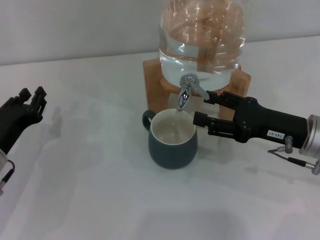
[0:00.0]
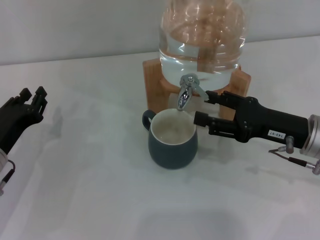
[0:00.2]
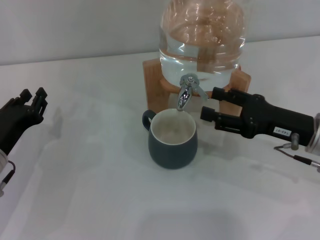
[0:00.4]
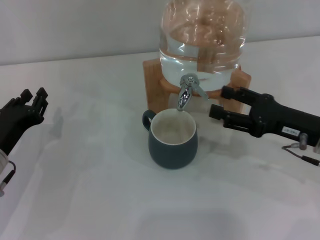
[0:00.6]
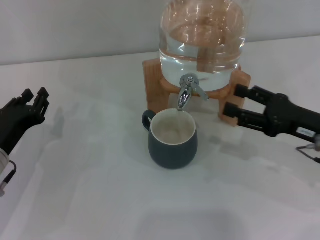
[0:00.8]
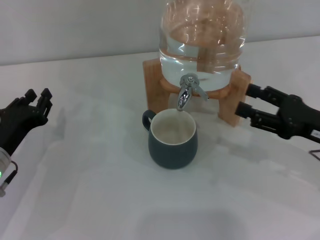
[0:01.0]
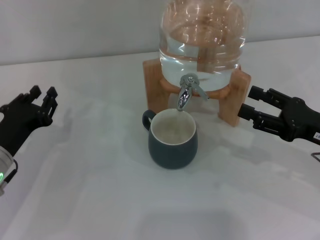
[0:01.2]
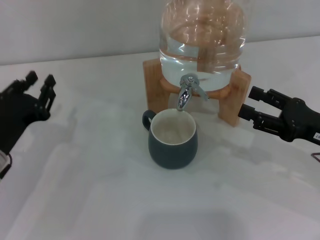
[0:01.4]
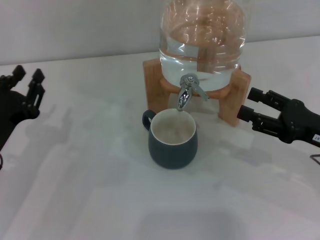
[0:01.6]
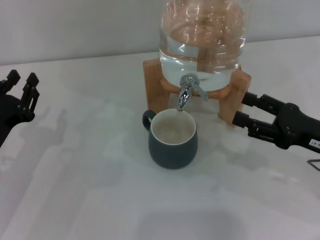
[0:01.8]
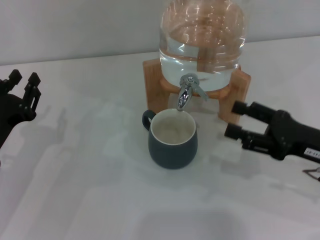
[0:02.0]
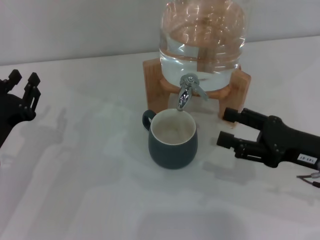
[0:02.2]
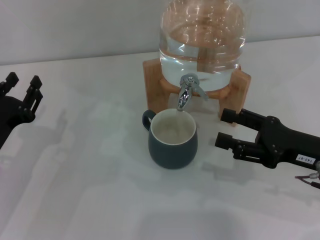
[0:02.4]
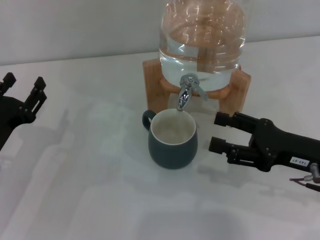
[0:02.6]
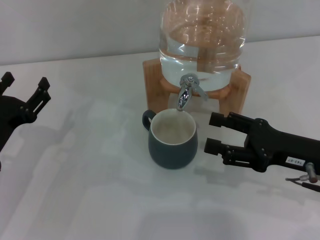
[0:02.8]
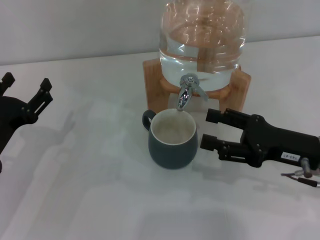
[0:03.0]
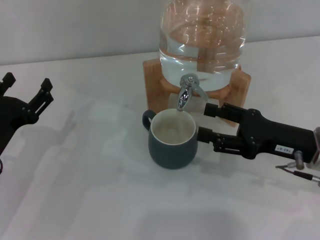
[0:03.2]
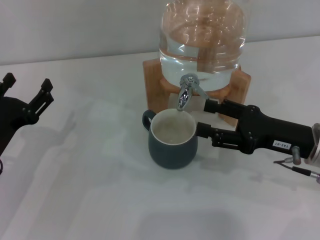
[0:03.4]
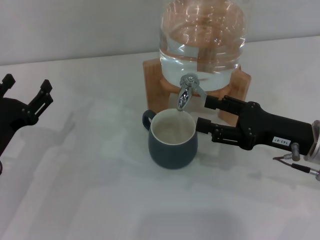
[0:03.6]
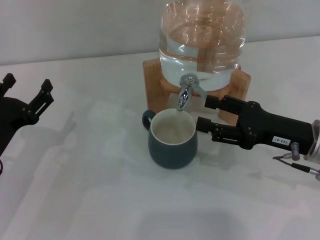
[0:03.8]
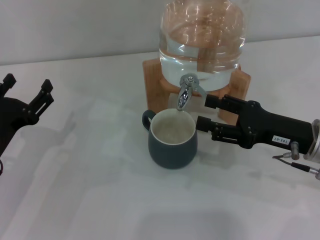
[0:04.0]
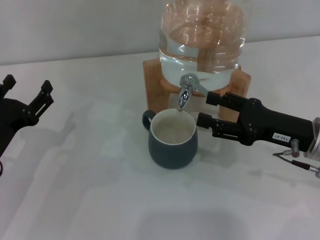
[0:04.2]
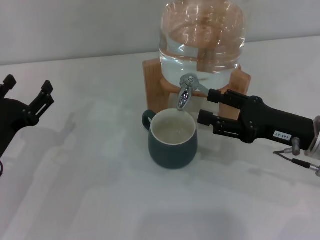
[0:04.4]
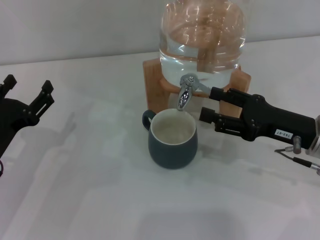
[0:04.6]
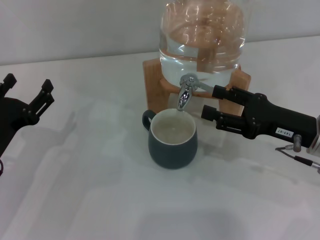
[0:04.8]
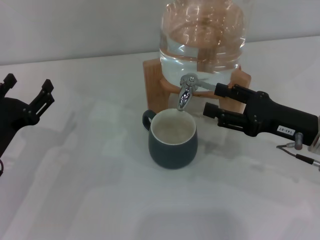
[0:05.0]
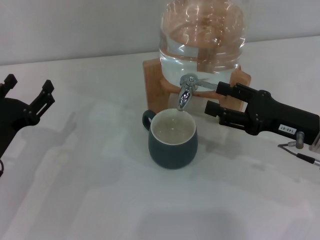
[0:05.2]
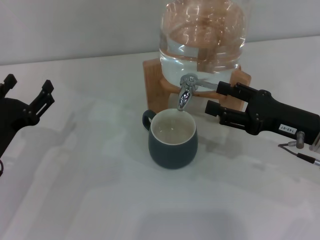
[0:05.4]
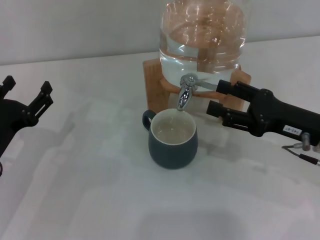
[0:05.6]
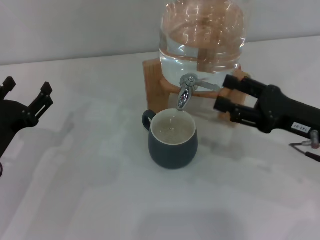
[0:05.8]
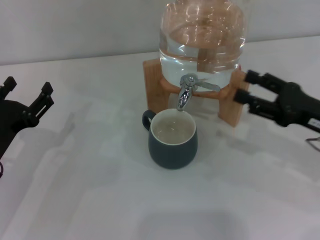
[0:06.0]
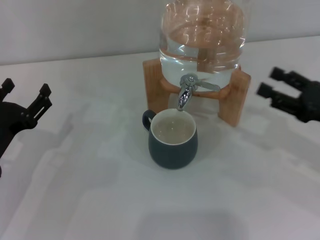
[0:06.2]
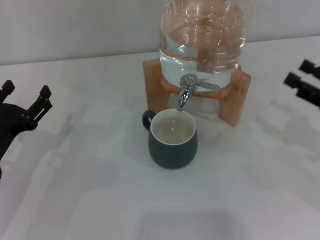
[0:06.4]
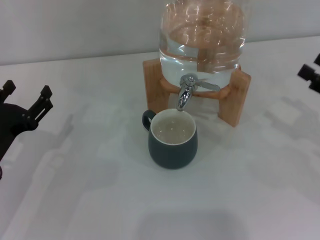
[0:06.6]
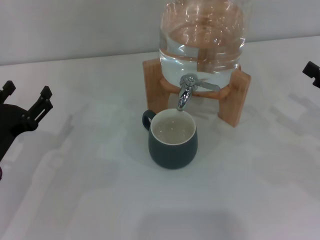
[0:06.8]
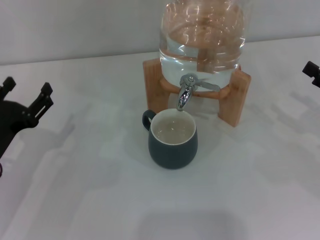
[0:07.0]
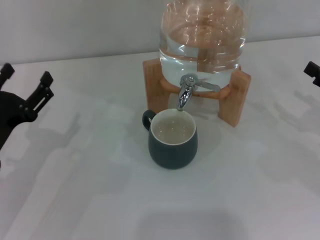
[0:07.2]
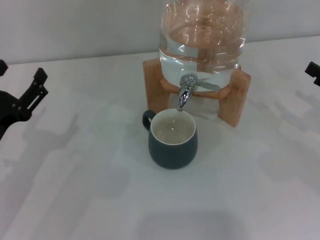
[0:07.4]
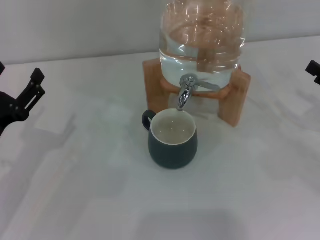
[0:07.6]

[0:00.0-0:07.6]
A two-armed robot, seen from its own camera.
Task of the whole recording: the left gripper pick up the black cup and place it horizontally under the faucet, the right gripper turn on the faucet to fill the cup, and then turn off the faucet.
Step, 0:00.6 to 0:05.6: Close the dispenser valve with the right gripper.
0:00.0 to 0:01.6: The right gripper shifts by some 5 cm.
0:01.6 to 0:03.0: The left gripper opens up.
0:03.0 to 0:06.0: There are only small adjustments of the grippers.
0:06.0 to 0:07.6: The right gripper heads to the right, covering some 10 cm.

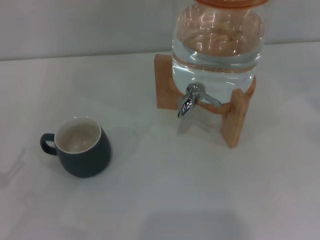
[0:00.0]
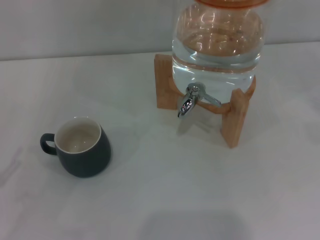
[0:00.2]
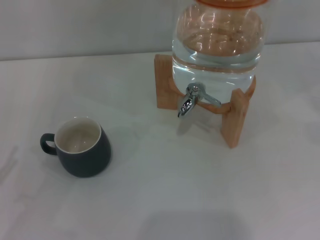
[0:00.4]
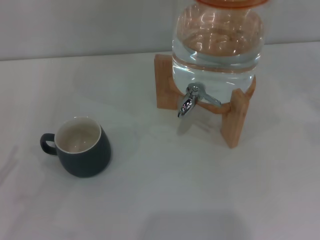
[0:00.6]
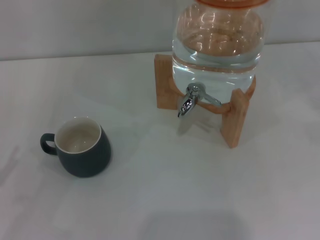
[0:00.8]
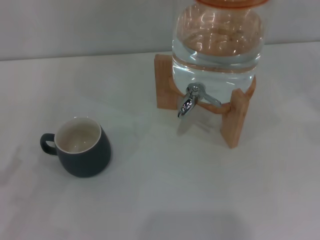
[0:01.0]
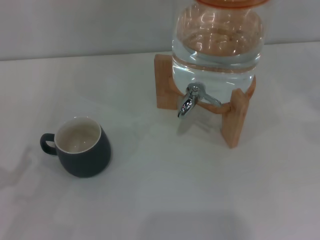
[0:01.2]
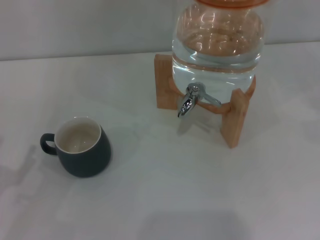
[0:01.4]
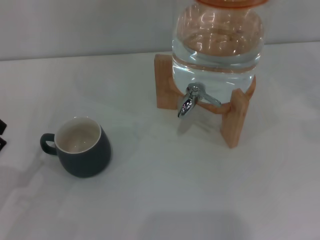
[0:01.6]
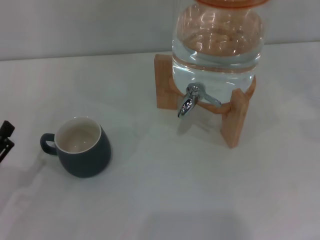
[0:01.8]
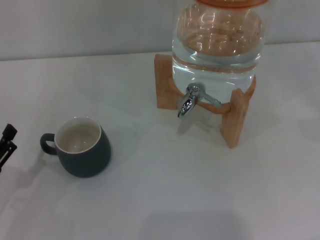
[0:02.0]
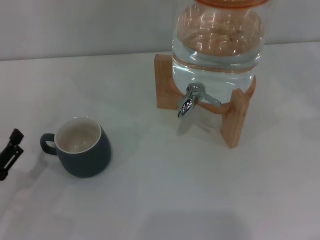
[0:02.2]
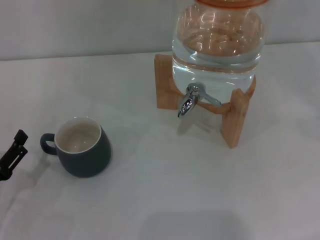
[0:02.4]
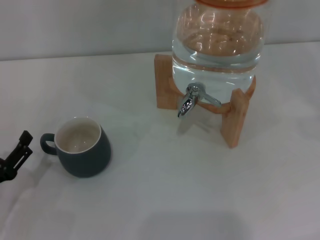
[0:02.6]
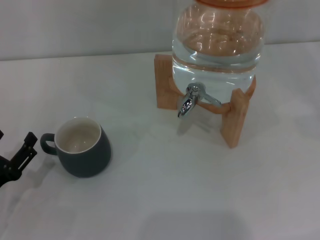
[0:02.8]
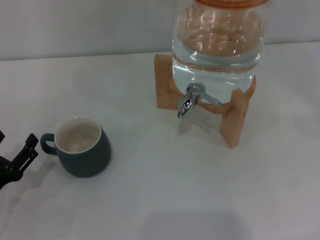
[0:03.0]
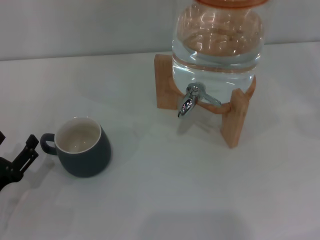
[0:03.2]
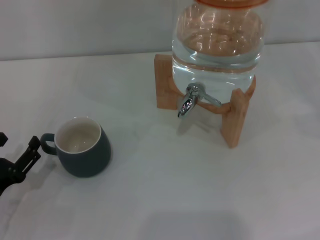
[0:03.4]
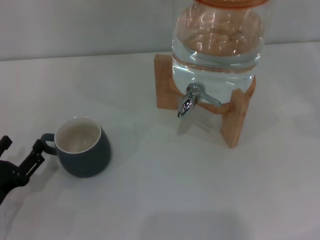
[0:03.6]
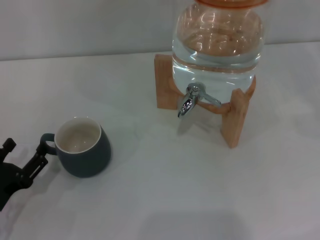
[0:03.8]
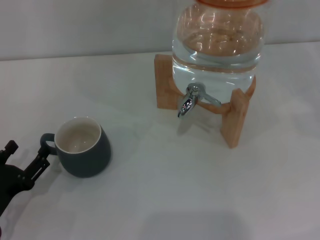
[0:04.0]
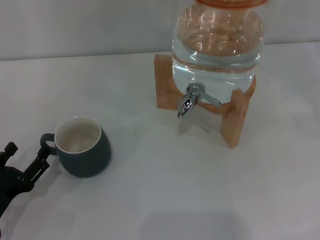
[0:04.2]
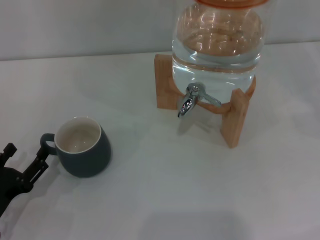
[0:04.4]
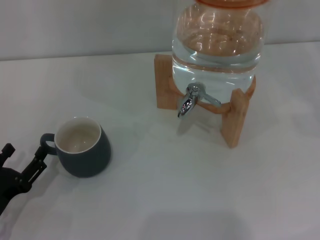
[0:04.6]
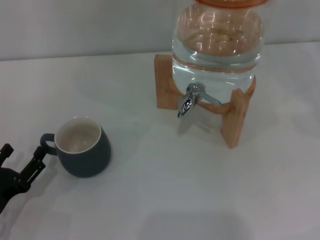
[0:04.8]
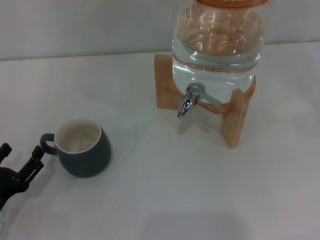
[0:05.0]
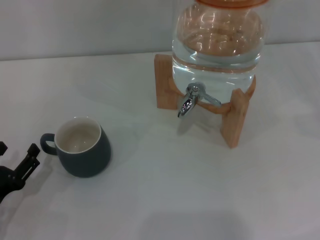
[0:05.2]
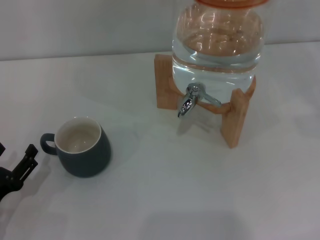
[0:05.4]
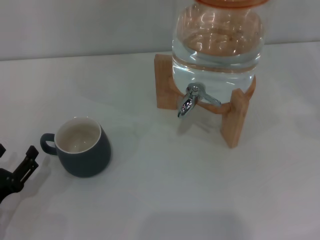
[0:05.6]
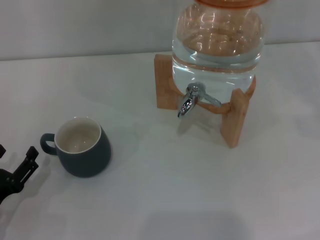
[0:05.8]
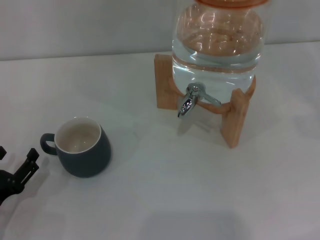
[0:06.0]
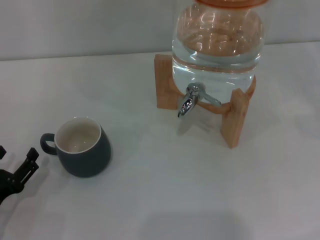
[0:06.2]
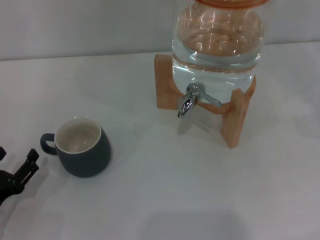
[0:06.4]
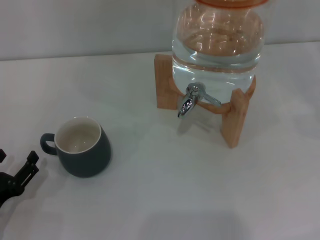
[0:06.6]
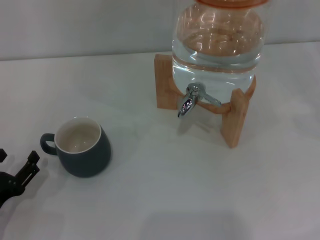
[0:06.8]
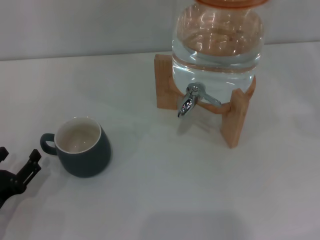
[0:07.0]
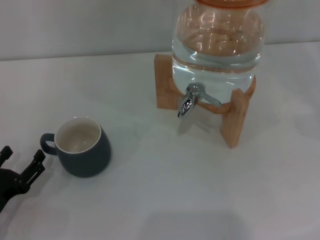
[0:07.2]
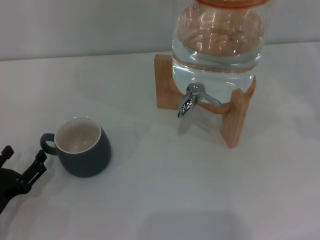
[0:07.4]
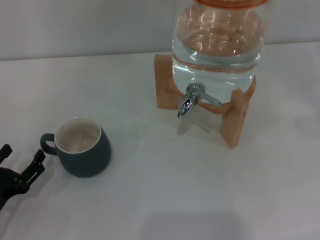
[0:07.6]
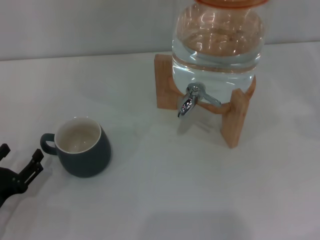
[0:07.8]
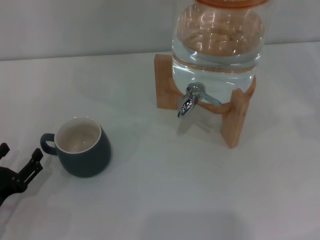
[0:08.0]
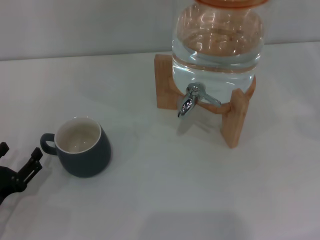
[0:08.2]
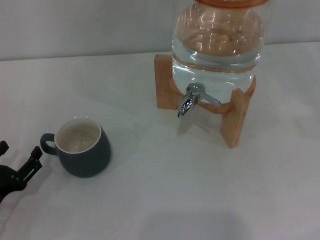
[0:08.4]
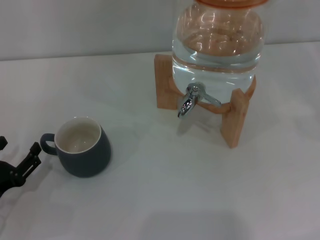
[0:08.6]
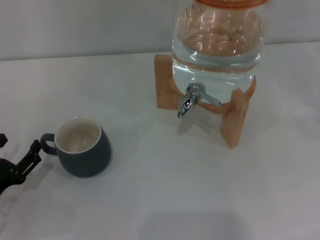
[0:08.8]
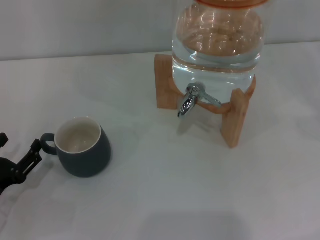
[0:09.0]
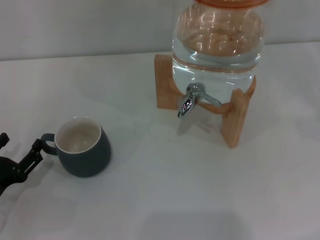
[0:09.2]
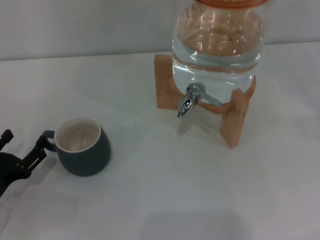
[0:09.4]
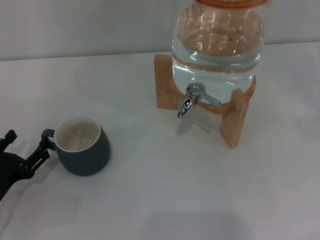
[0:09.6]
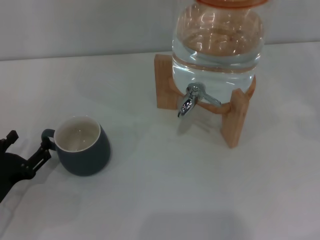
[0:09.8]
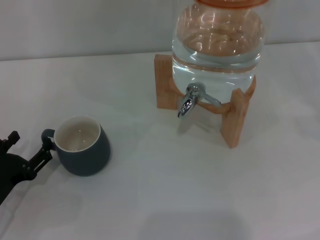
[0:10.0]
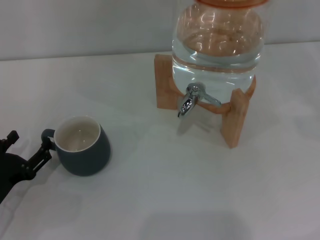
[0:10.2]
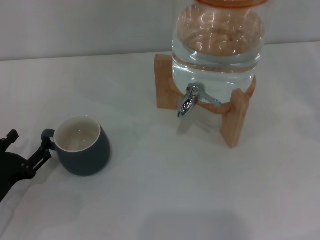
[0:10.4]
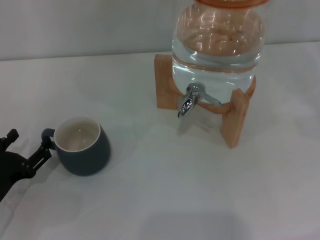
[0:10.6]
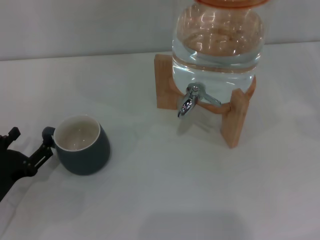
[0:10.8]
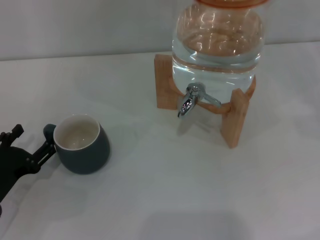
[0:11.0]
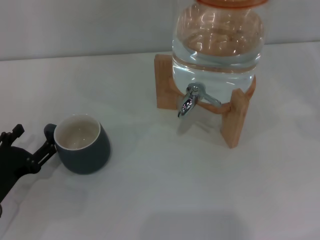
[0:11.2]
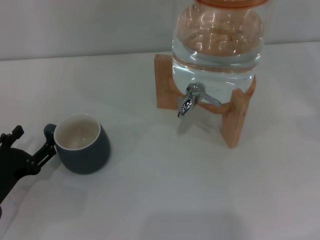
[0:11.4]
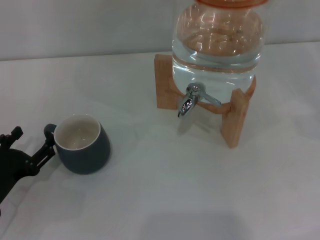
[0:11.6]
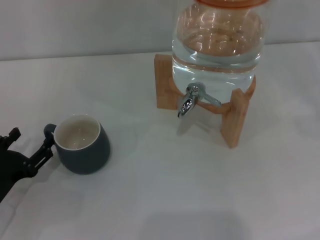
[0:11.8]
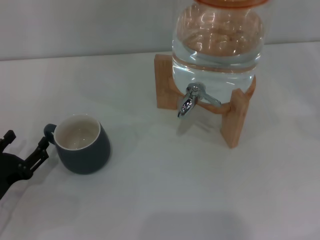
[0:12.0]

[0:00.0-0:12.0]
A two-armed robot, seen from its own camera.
Task of the whole recording: the left gripper pick up the black cup and place it horizontally under the faucet, the right gripper turn on the faucet to fill the cup, and then turn off the faucet.
0:01.6 to 0:04.4: The grippers stay close to where they were, moving slightly.
0:04.4 to 0:06.0: Both grippers stay about where they are.
0:06.0 to 0:07.6: The grippers stay close to where they were, moving slightly.
0:07.6 to 0:09.0: The two grippers keep their place.
0:09.0 to 0:10.4: The grippers make only small movements.
0:10.4 to 0:12.0: Neither gripper changes place.

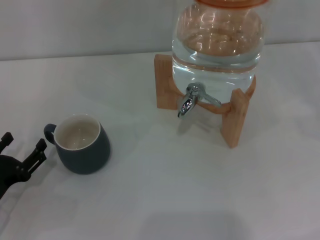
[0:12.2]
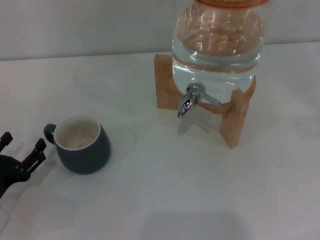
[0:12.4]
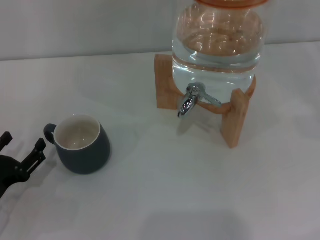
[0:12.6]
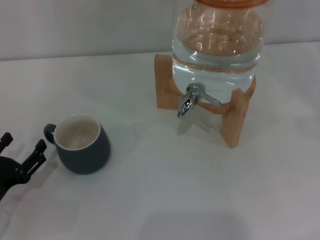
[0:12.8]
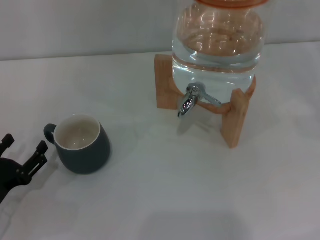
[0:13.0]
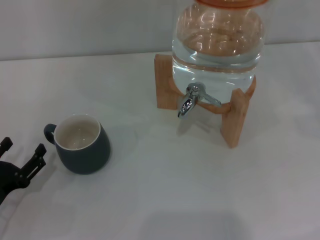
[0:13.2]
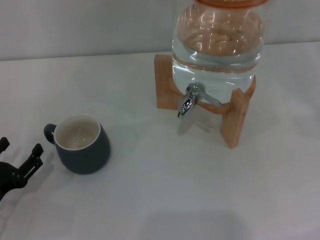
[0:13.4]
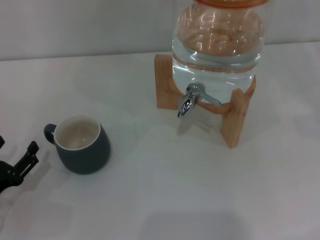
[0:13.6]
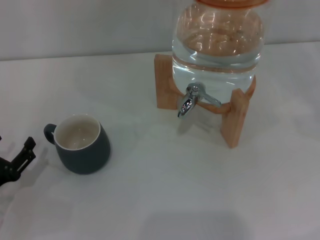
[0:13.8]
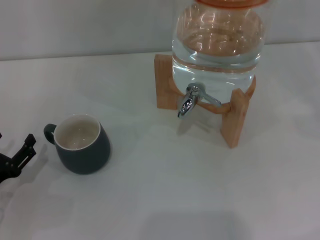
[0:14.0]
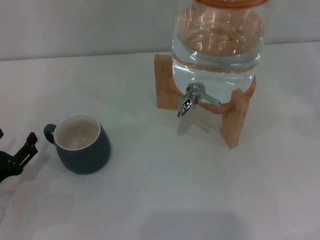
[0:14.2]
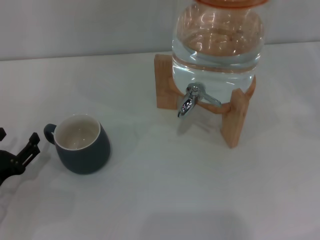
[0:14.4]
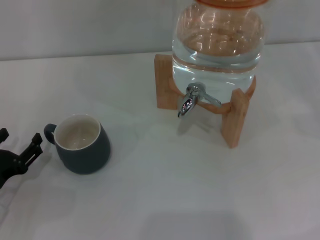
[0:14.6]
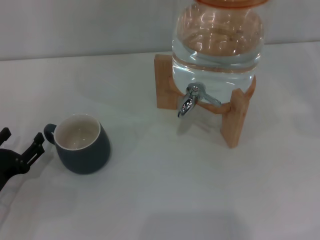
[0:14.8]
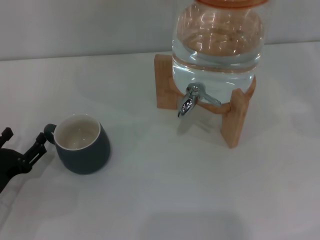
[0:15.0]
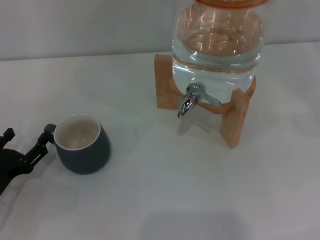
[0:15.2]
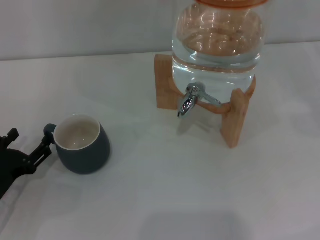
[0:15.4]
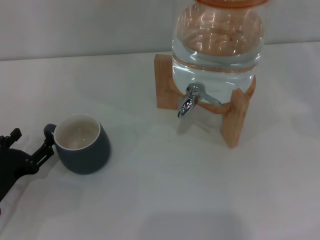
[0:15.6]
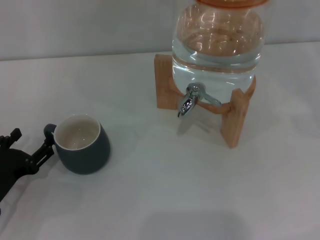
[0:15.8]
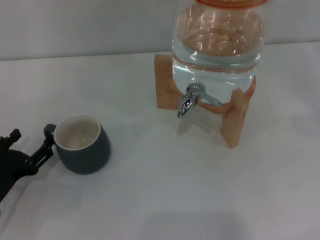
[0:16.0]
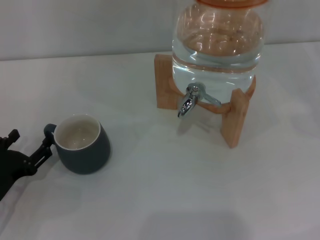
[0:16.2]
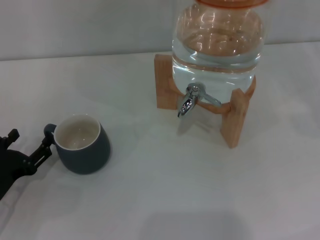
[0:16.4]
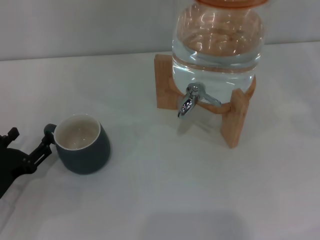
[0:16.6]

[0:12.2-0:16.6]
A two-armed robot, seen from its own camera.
Task of the whole recording: the left gripper pick up the black cup and place it horizontally under the faucet, the right gripper turn on the faucet to fill the cup, and then turn off the faucet.
0:12.2 to 0:13.6: Both grippers stay put.
0:13.6 to 0:15.2: The grippers stay close to where they were, moving slightly.
0:15.2 to 0:16.6: Both grippers stay put.
